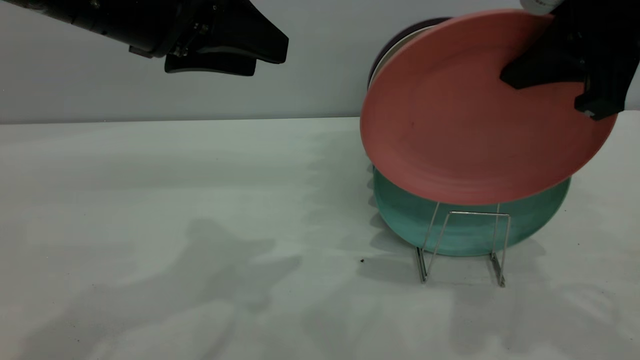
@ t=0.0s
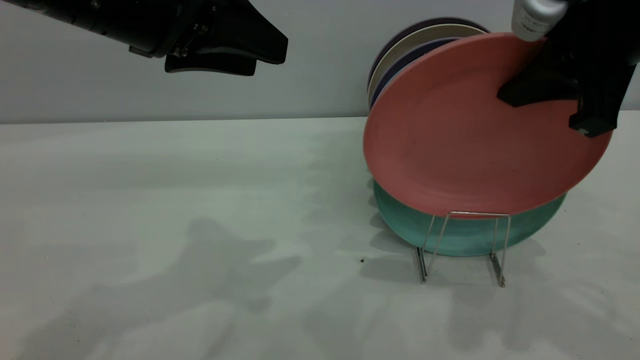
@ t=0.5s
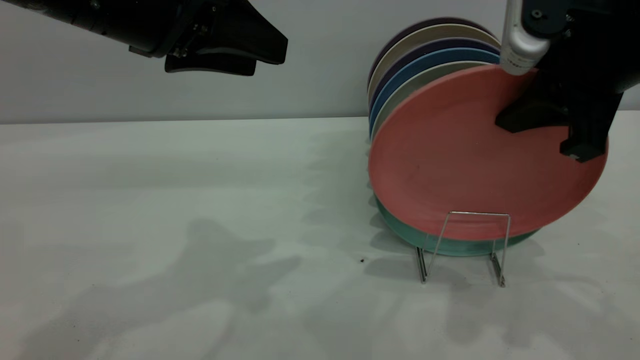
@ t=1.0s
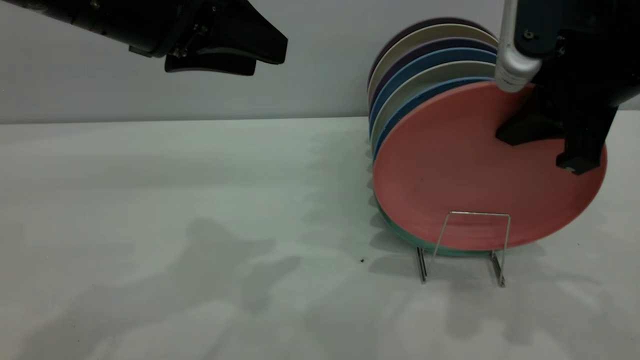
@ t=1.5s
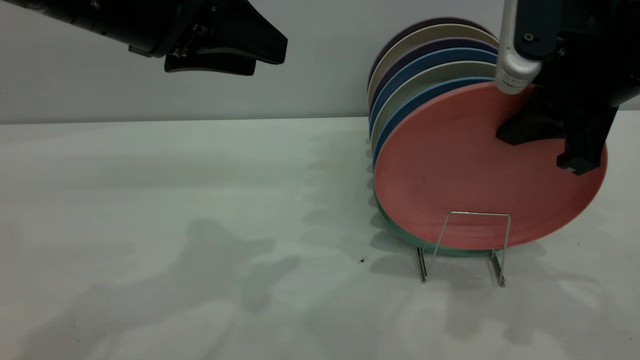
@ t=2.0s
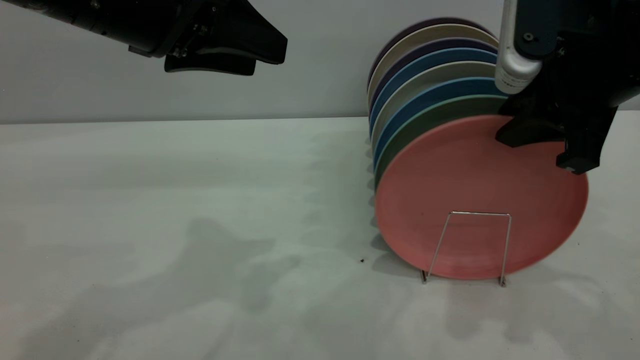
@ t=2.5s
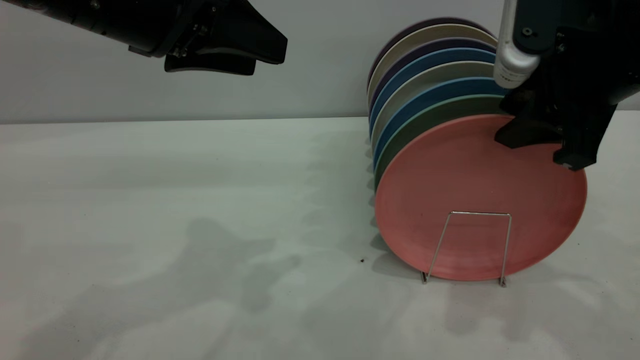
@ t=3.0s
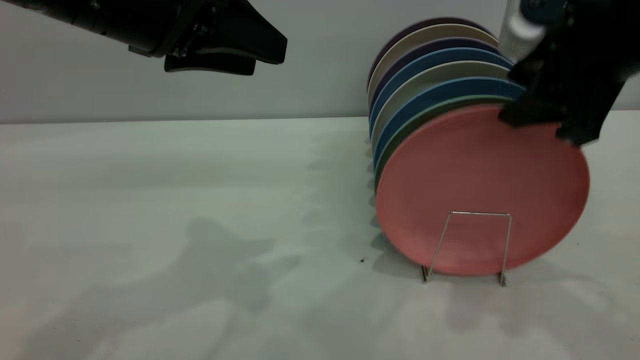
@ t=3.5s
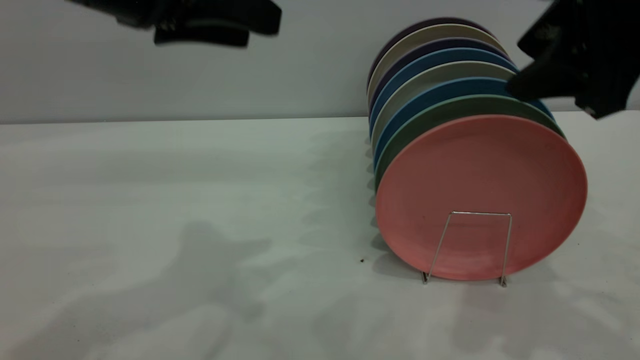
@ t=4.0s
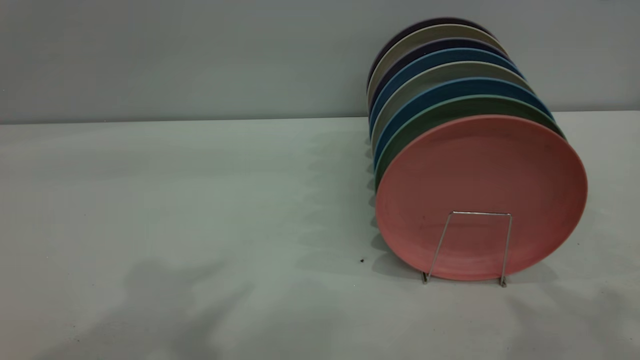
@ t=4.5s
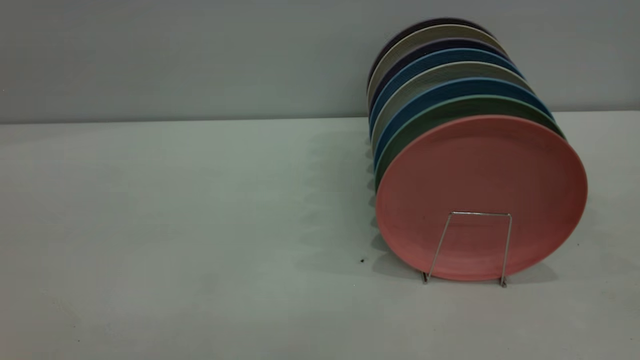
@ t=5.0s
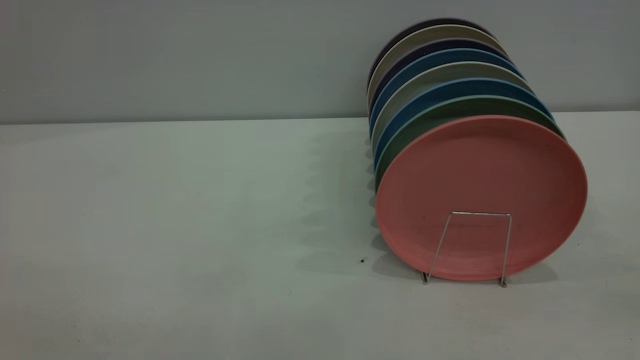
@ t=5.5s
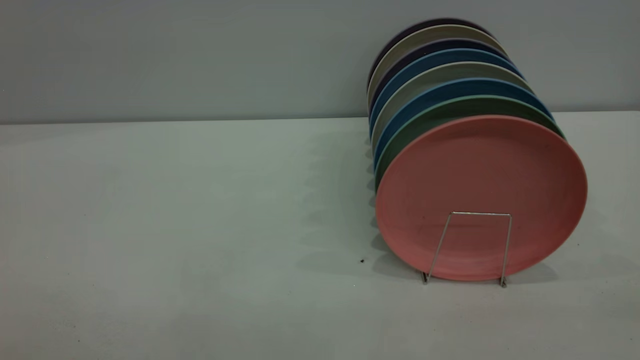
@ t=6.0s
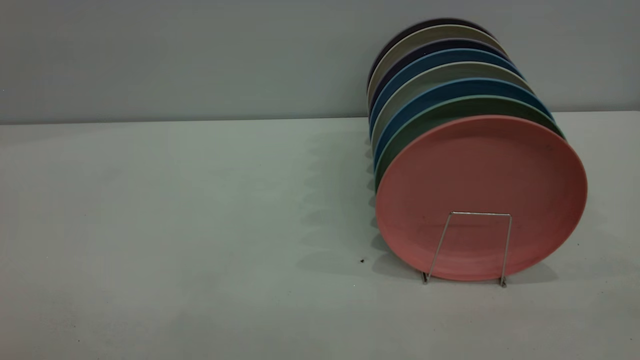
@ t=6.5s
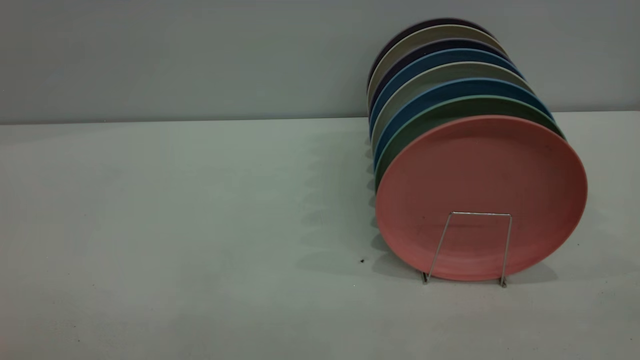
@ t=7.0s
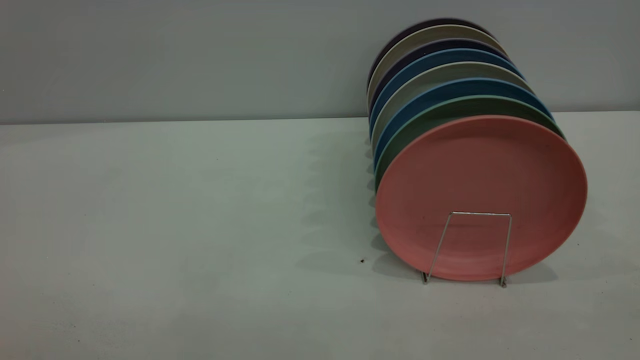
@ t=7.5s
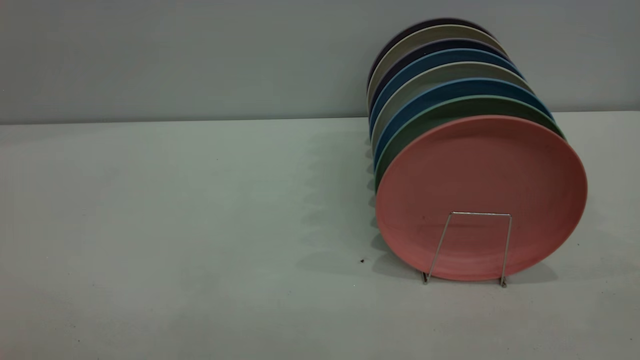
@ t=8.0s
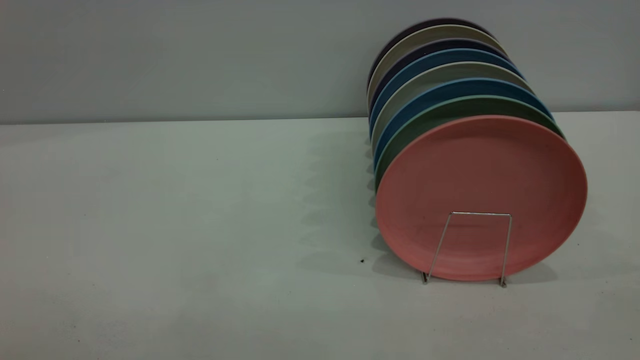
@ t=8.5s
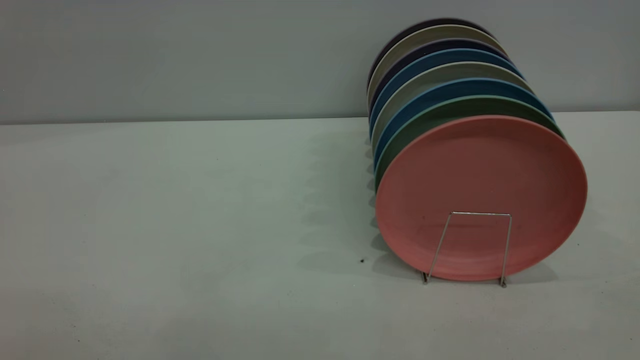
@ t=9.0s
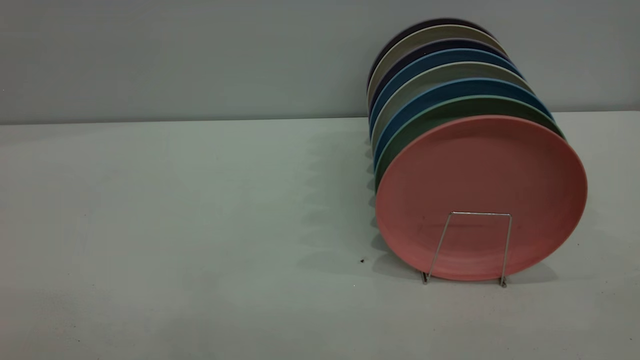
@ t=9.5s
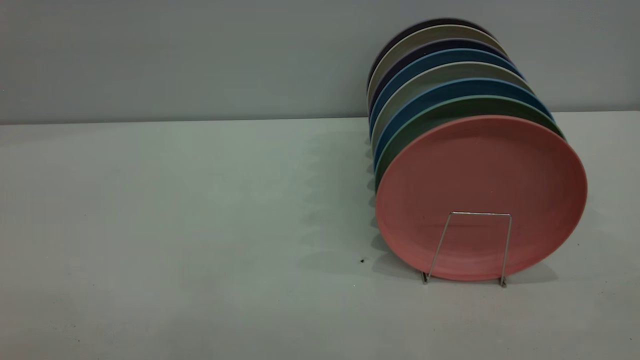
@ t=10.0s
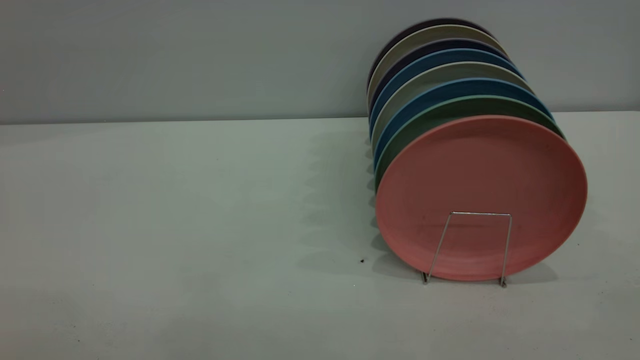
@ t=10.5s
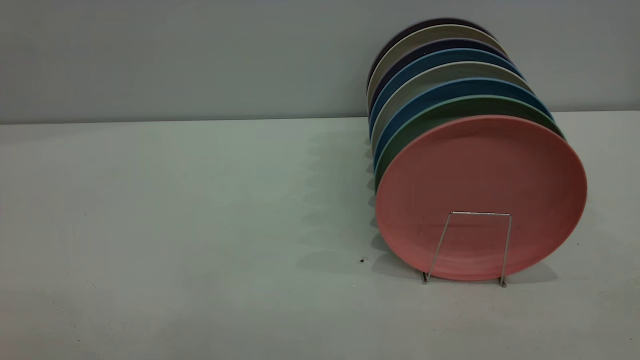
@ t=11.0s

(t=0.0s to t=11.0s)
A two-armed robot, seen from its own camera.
Task of the whole recording: put the plate on the plate rack.
Step, t=0.0s - t=4.0s: Place the plate on the shelf.
t=0.0s - t=2.0s: The right gripper ends up about 5 cm from where it was.
t=2.0s - t=3.5s: The right gripper opens up.
t=3.5s - t=5.5s: The right gripper goes about 30 cm backward and upward; the left gripper is displaced backward and to the left by approximately 35 cm.
t=9.0s - t=11.0s: Both grippers stay about where they are.
